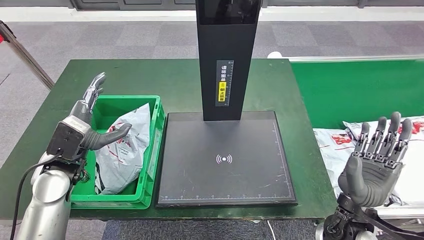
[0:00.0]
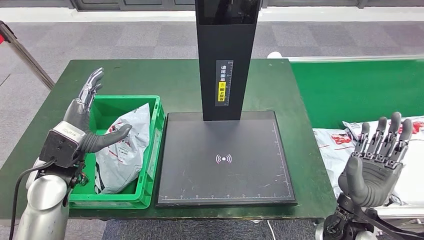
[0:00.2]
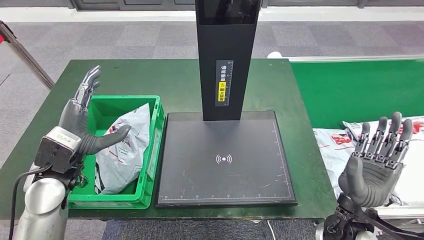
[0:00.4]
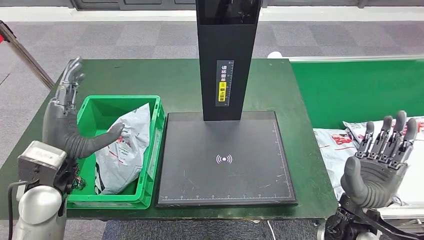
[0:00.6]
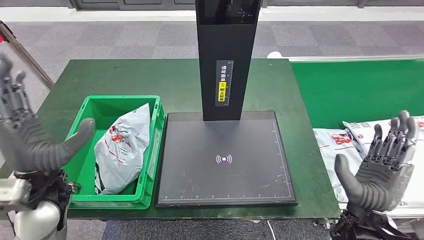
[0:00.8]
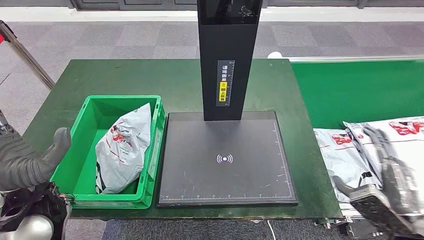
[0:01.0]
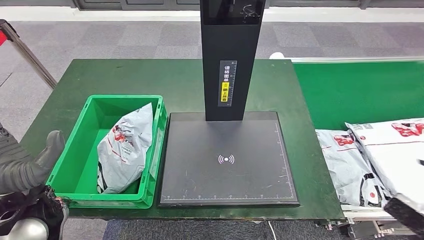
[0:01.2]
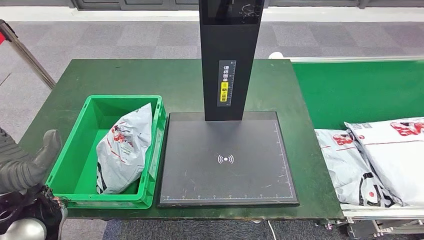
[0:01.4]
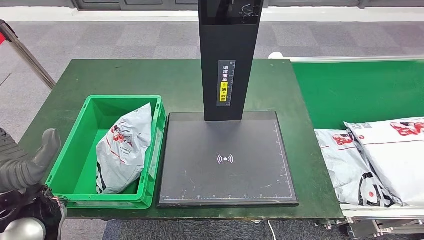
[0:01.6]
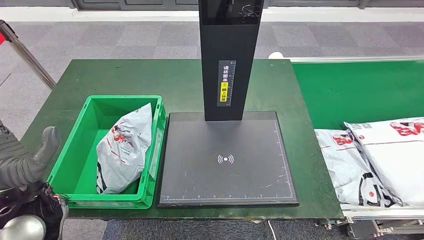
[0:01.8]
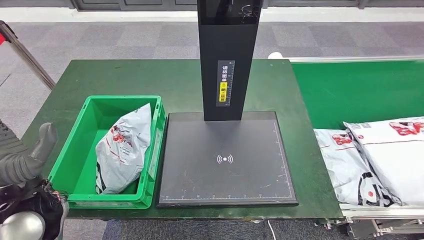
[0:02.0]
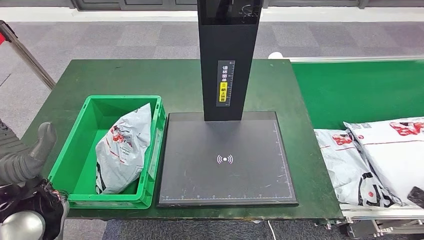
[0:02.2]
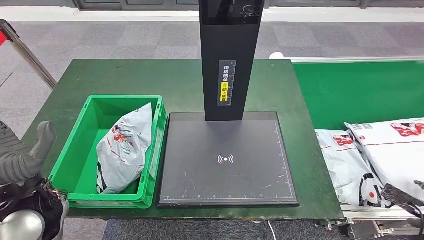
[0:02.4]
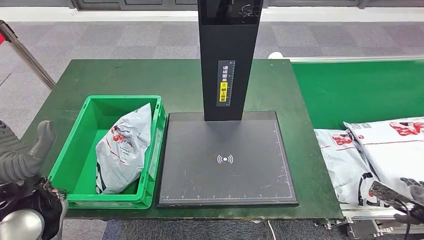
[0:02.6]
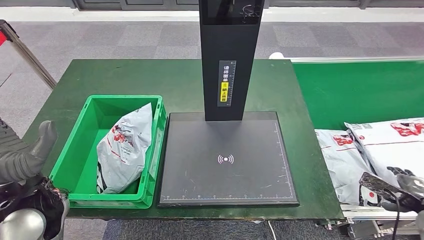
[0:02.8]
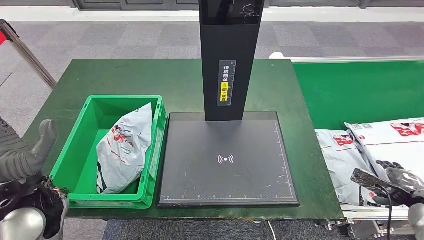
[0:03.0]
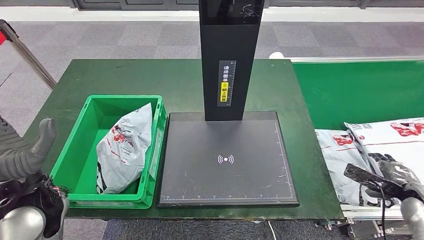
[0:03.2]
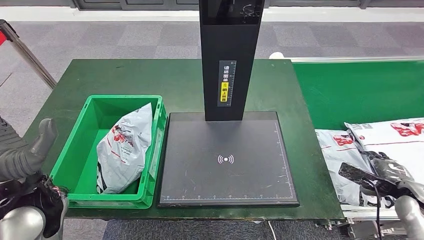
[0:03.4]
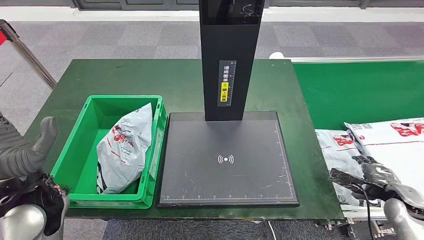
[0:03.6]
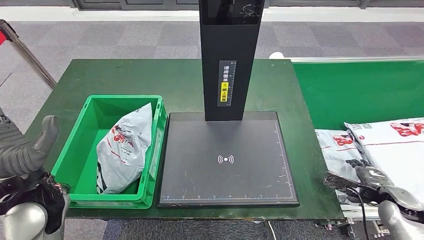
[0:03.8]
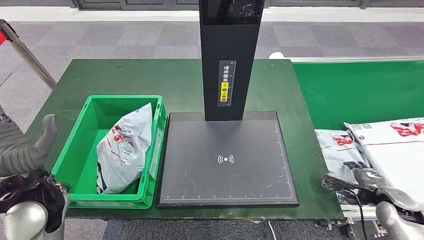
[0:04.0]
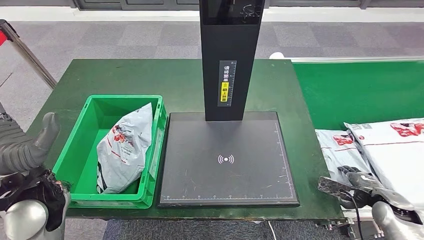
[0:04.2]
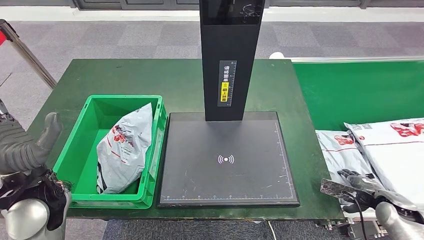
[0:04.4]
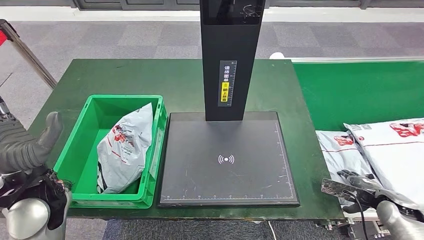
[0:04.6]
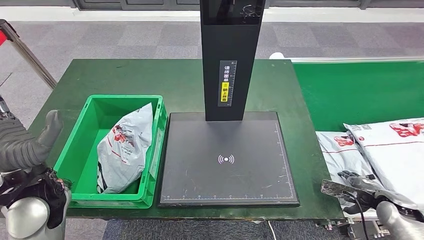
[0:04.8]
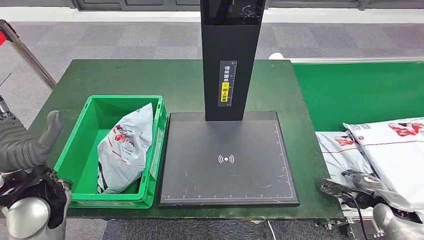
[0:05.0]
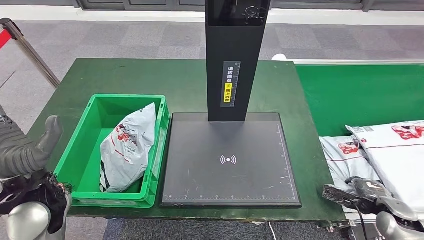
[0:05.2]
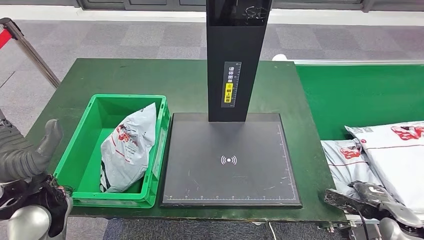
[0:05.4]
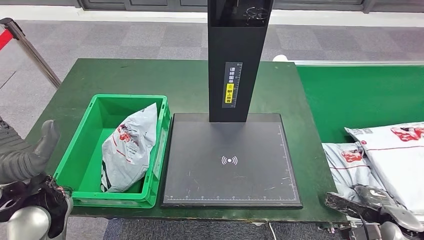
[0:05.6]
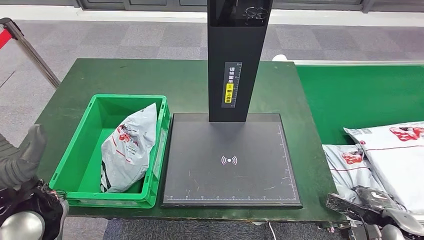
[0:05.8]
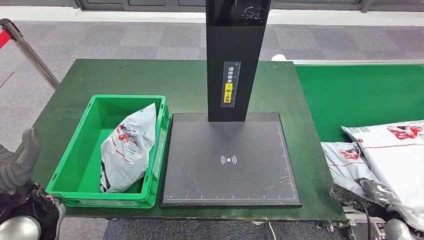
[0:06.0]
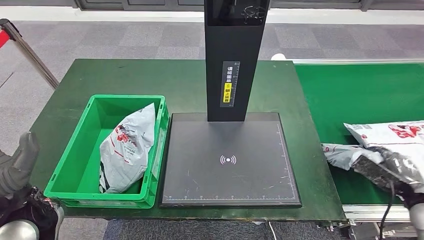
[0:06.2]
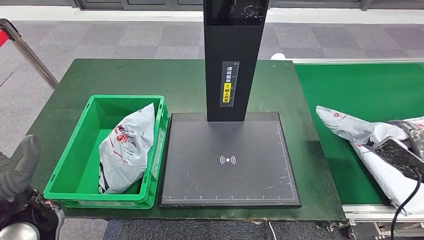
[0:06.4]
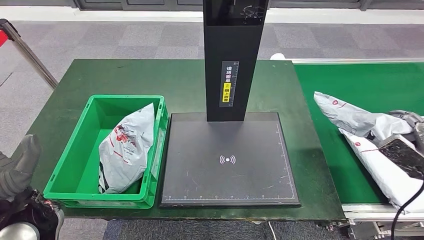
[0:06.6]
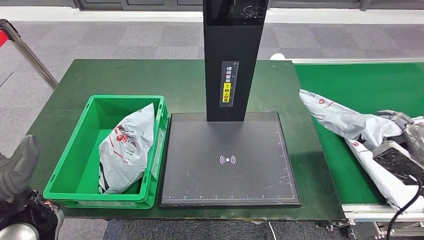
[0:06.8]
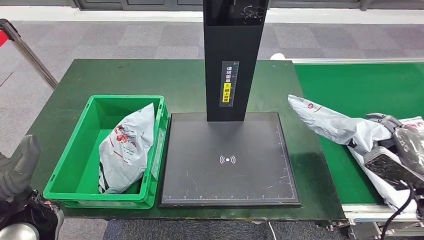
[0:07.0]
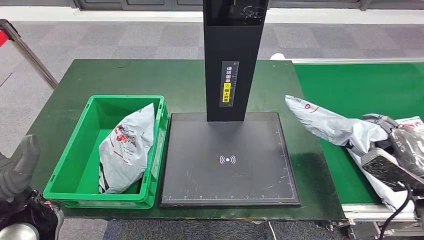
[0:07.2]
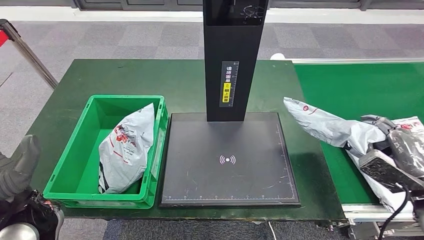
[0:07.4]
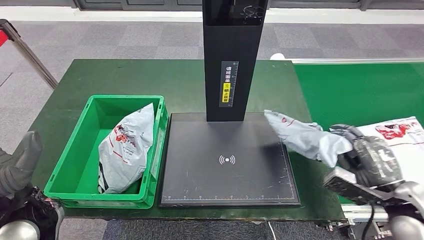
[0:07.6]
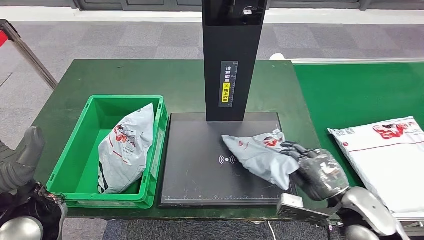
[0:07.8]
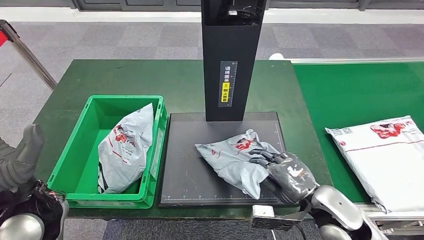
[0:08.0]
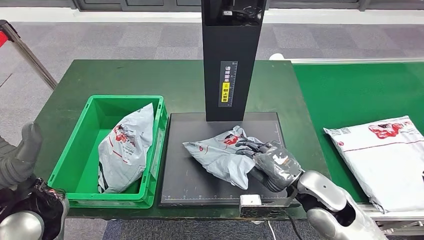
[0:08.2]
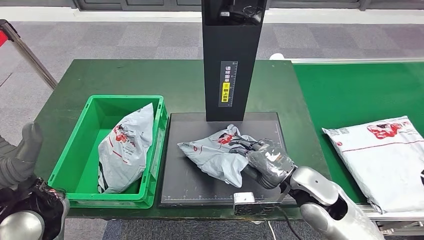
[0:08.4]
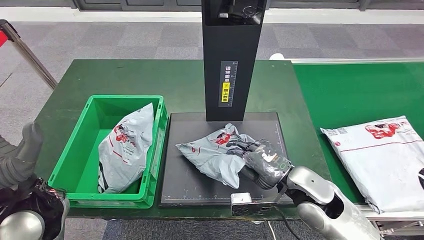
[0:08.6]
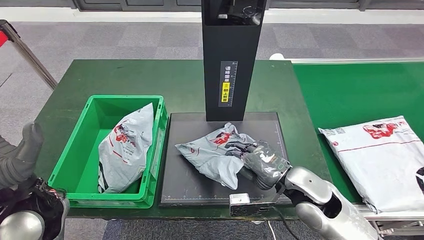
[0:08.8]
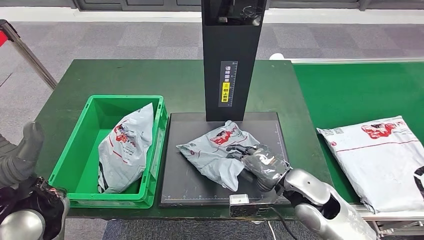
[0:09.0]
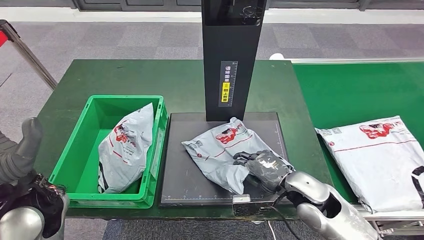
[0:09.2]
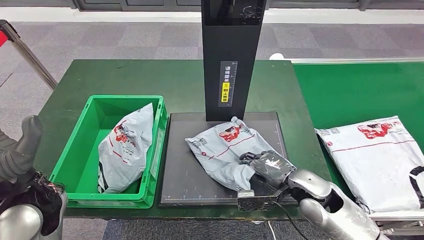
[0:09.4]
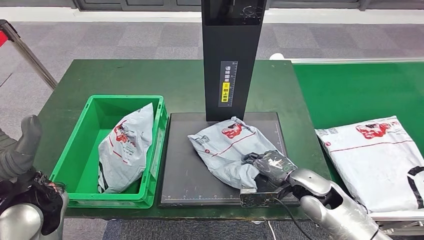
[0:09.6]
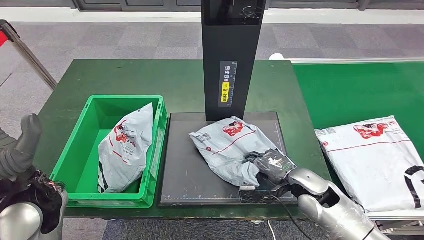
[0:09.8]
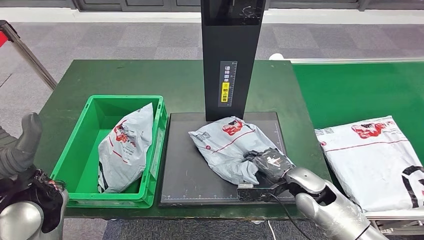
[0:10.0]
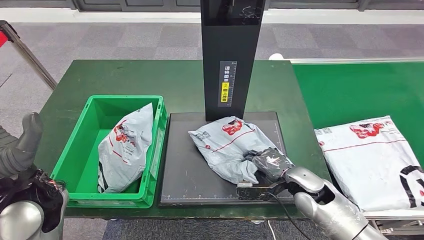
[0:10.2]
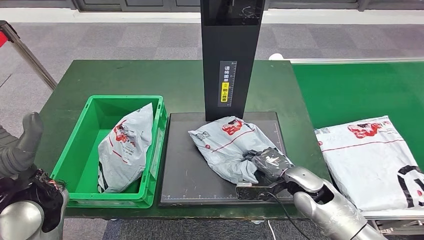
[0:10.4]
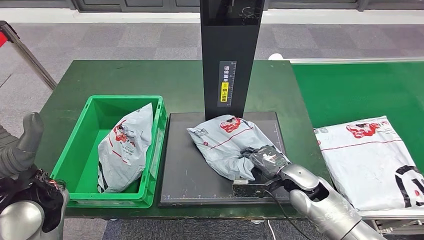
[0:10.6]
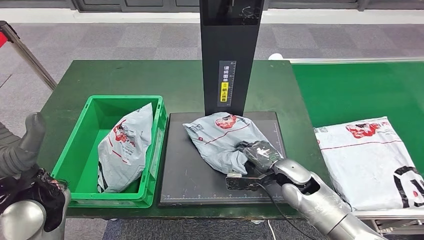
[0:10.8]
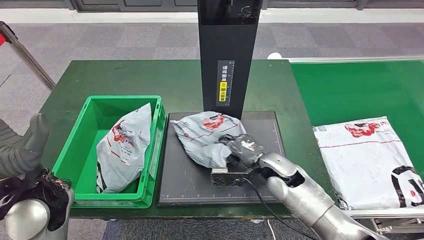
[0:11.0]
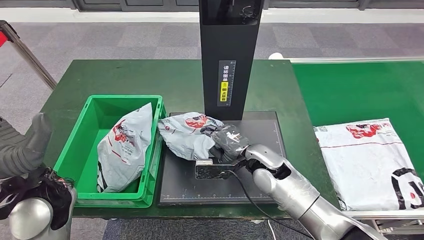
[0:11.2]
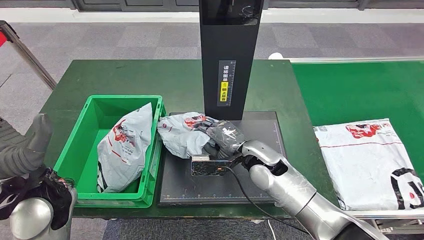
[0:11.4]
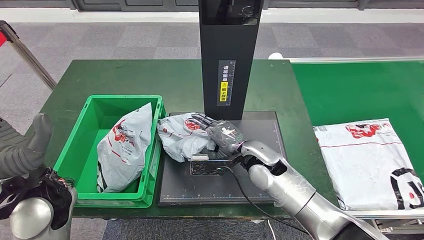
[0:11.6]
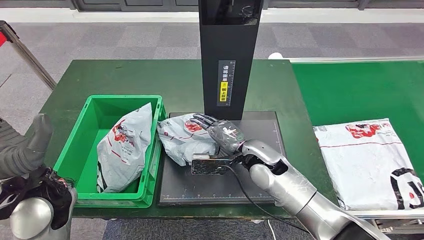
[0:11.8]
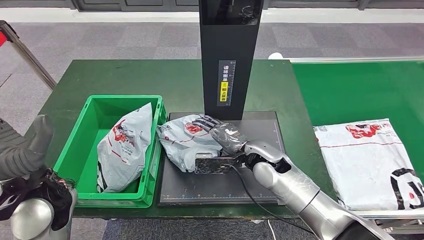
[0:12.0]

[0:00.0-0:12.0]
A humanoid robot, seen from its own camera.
Step, 0:00.0 to 0:06.4: Pick up the parcel from the conveyor belt.
Step, 0:06.8 to 0:09.8: Place the parcel onto the inbound machine.
0:00.0 to 0:01.6: The right hand heads to the right and backward, covering roughly 35 cm. The left hand travels backward by roughly 10 cm.
0:01.6 to 0:03.0: The right hand shifts roughly 20 cm forward and downward.
0:03.0 to 0:04.4: The right hand travels to the left by approximately 5 cm.
0:09.0 to 0:10.4: The right hand shifts about 5 cm downward.

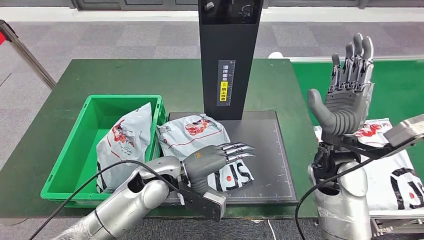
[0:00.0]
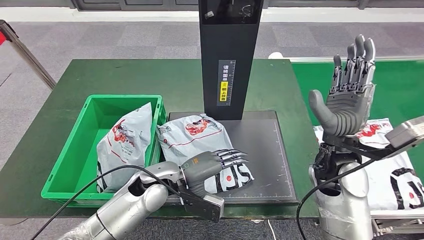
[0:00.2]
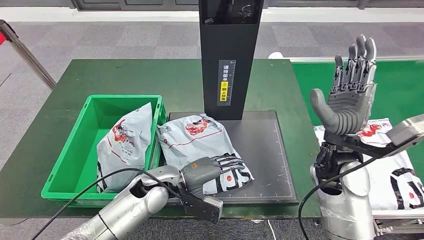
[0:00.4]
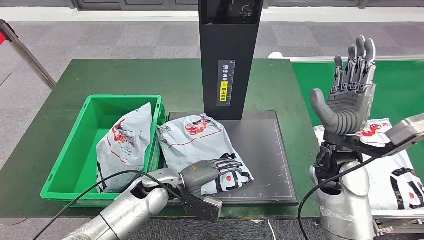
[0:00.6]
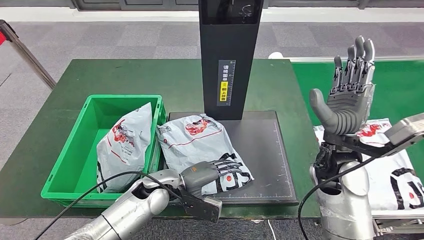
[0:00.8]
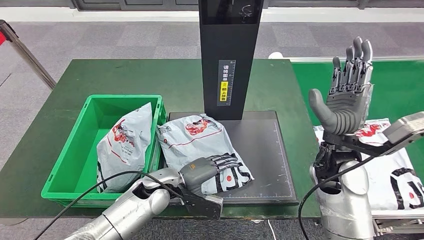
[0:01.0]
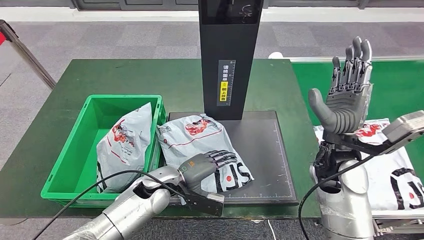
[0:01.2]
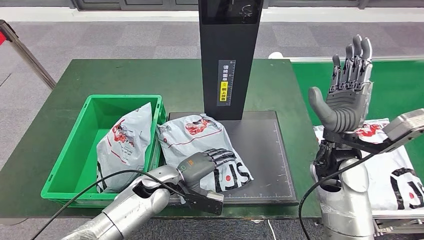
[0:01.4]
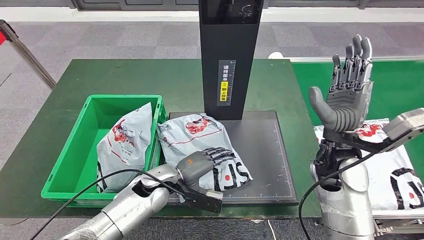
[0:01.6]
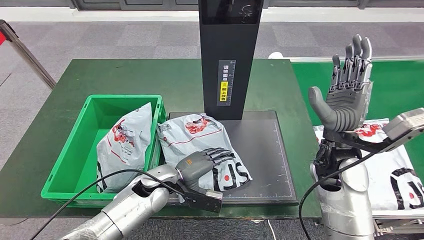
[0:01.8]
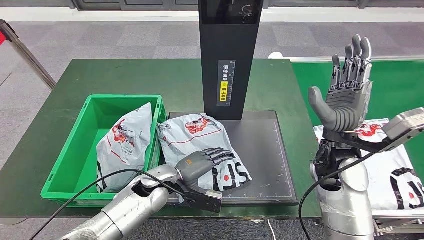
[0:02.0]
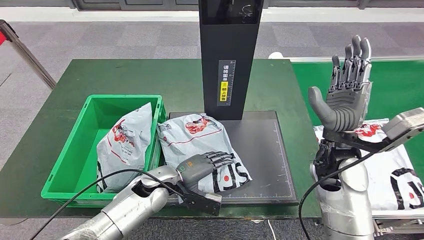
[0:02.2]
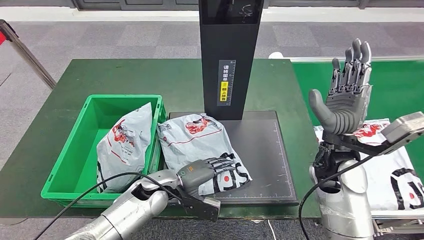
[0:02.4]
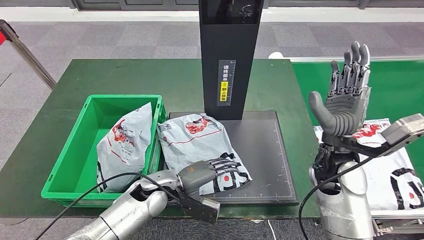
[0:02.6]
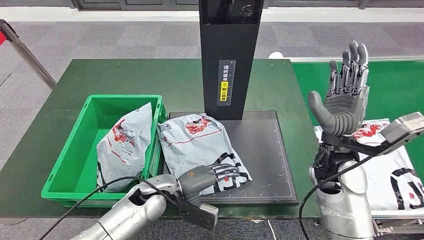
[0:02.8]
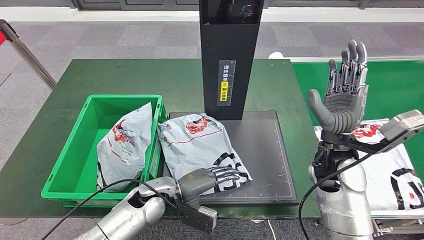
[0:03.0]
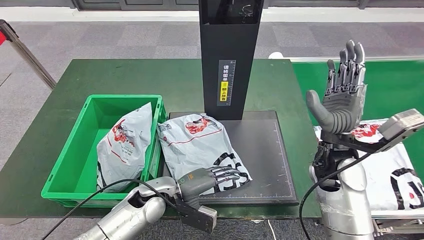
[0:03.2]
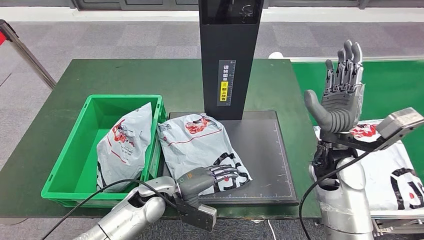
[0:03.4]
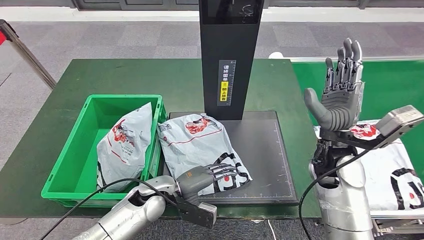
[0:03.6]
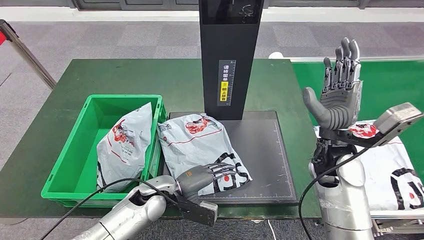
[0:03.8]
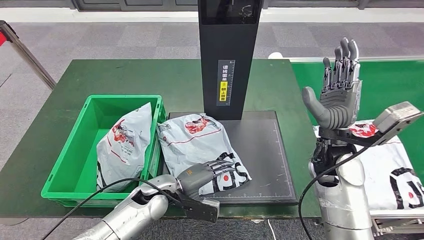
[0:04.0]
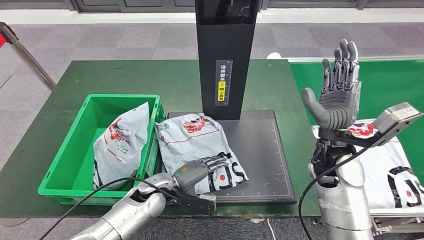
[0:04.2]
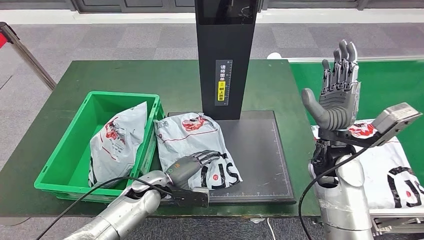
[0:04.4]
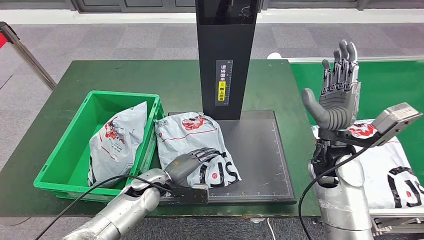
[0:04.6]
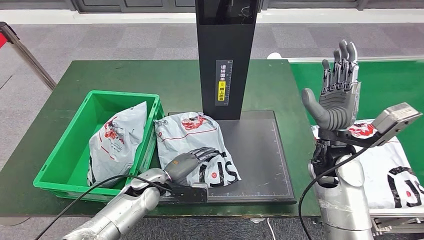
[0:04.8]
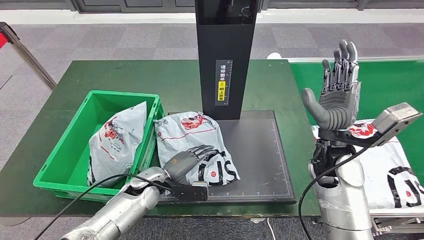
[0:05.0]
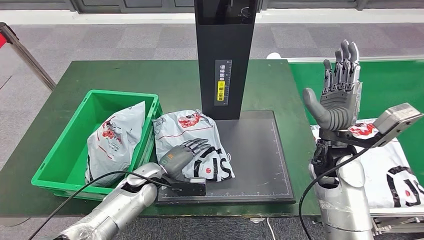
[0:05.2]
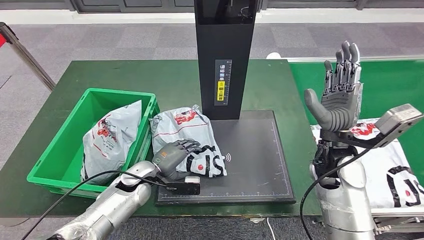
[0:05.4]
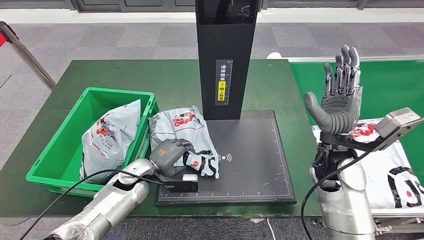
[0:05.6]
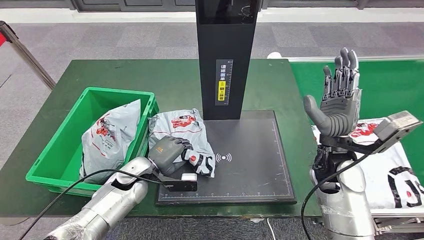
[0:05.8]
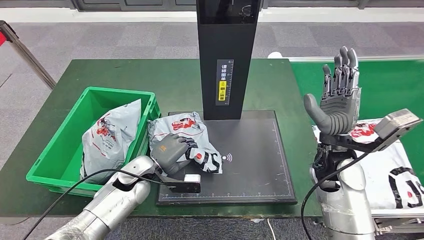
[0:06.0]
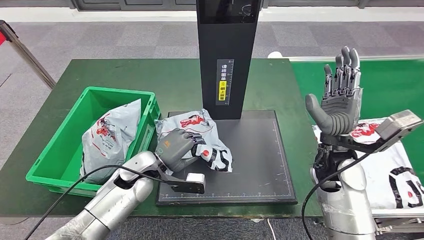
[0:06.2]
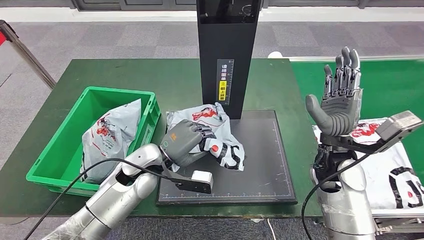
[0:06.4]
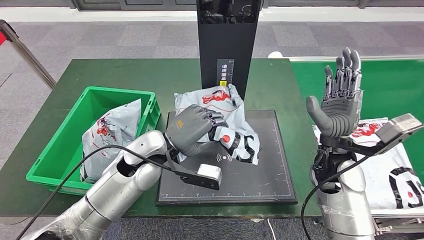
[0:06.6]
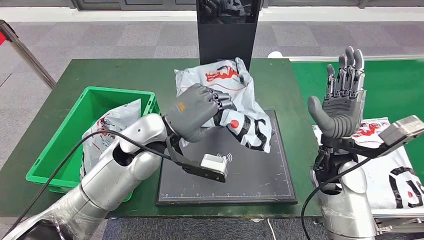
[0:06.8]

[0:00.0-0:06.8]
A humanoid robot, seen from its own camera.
0:00.0 to 0:01.4: The left hand moves downward, some 5 cm.
0:01.4 to 0:04.0: There are only small adjustments of the hands.
